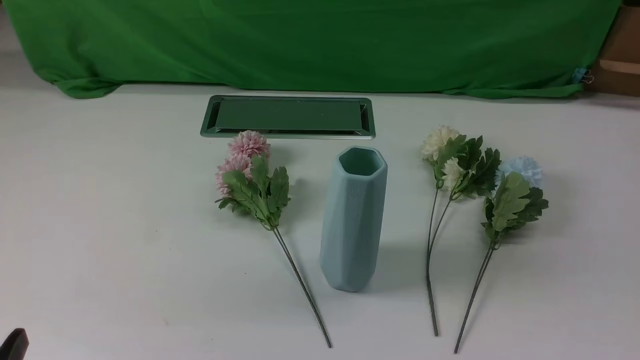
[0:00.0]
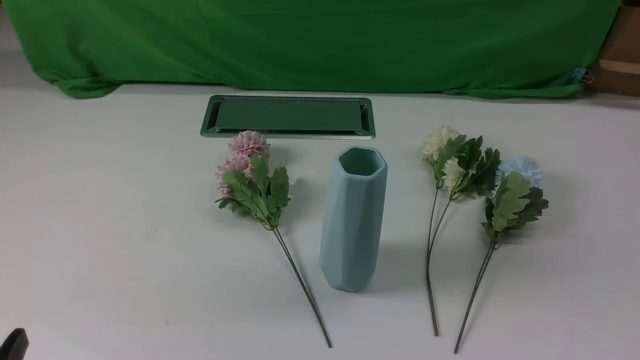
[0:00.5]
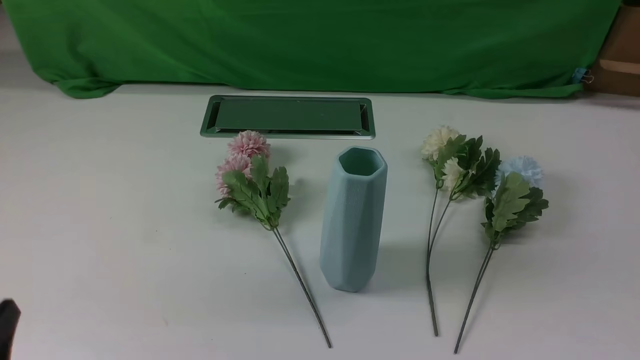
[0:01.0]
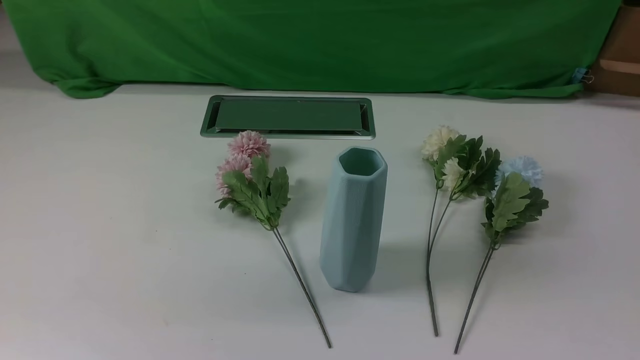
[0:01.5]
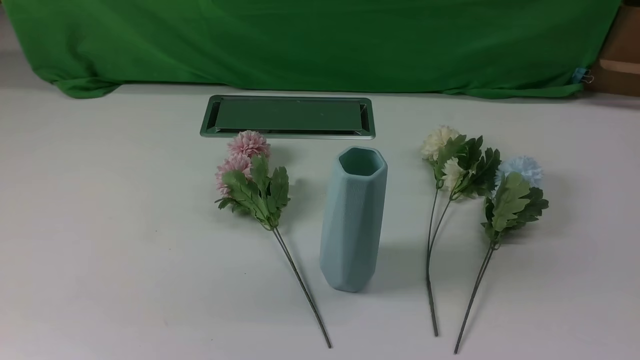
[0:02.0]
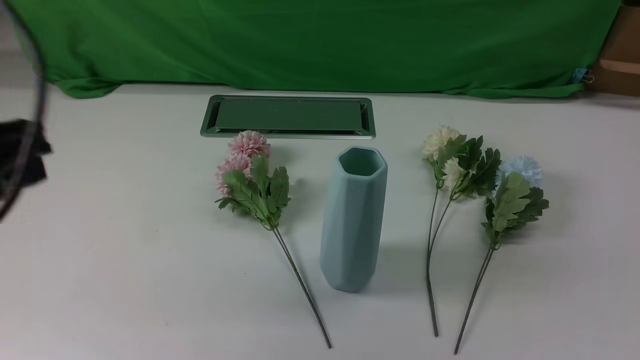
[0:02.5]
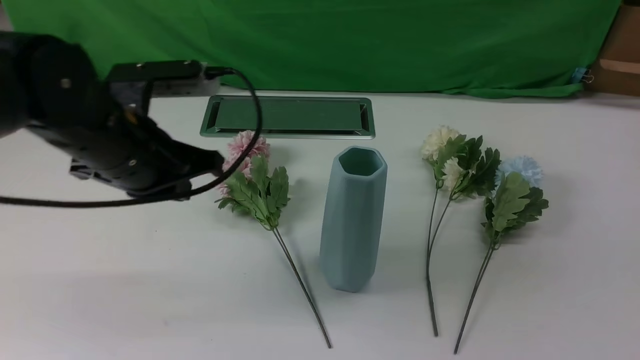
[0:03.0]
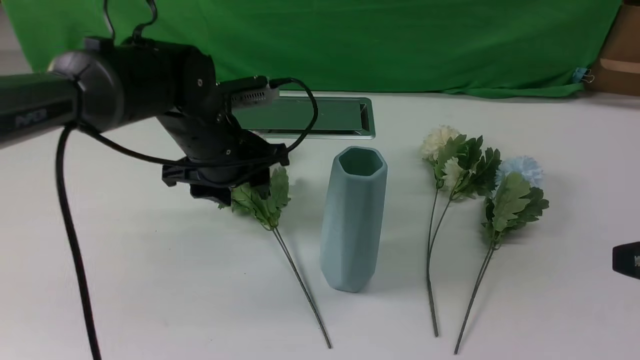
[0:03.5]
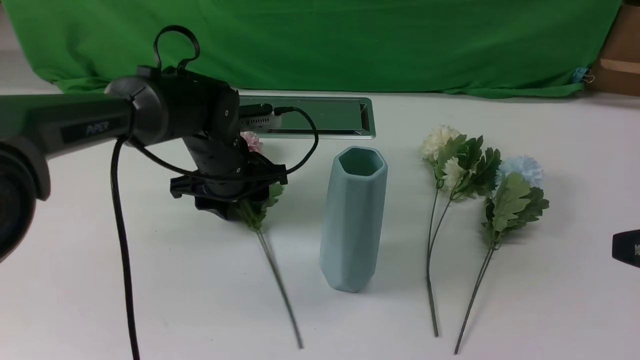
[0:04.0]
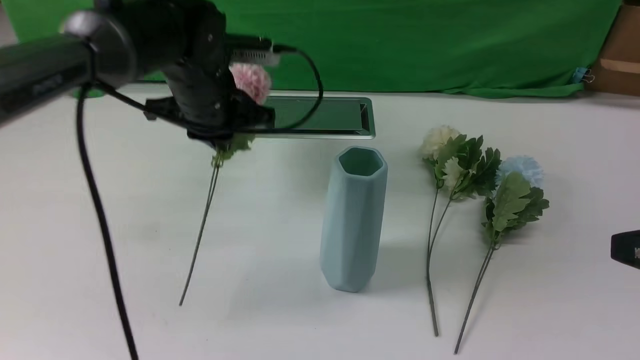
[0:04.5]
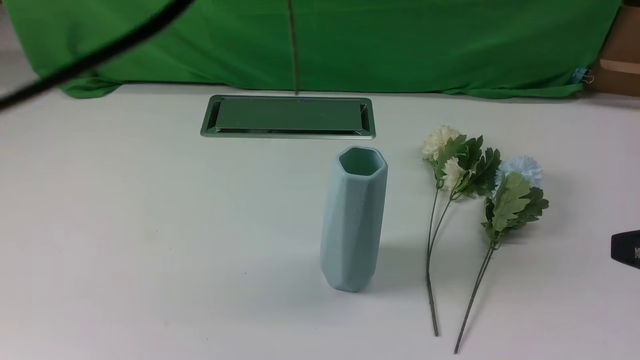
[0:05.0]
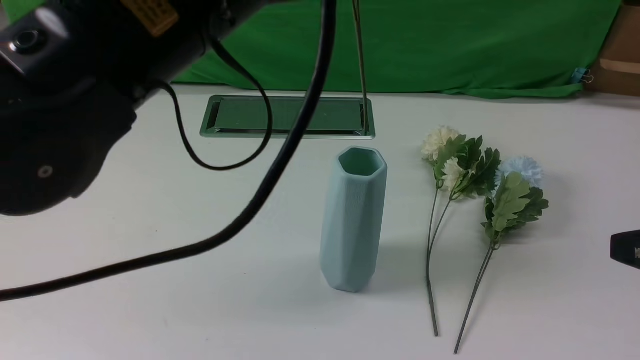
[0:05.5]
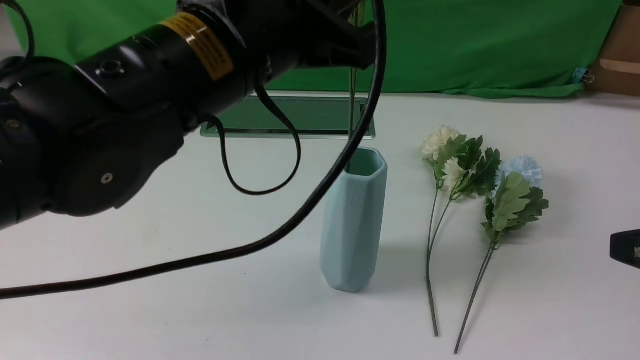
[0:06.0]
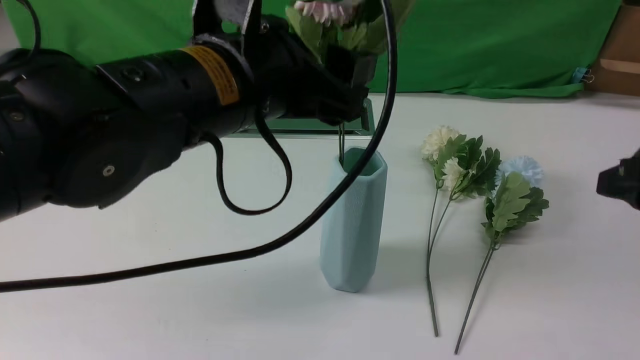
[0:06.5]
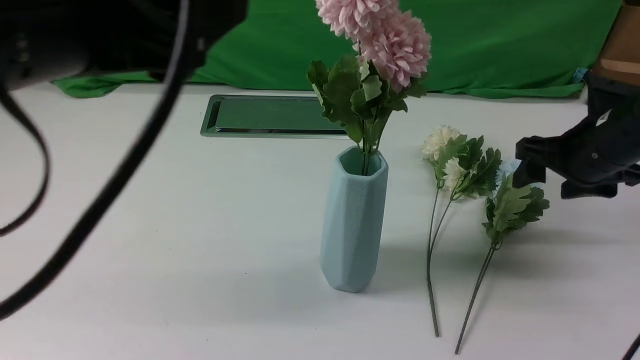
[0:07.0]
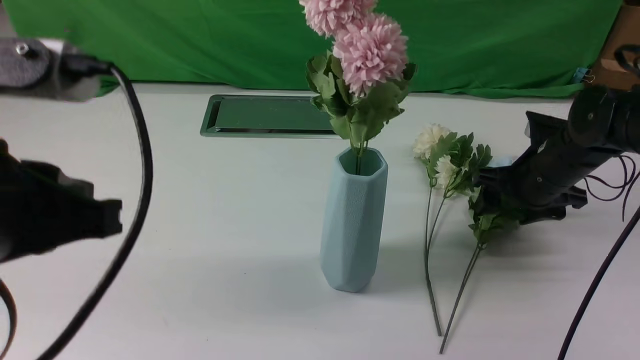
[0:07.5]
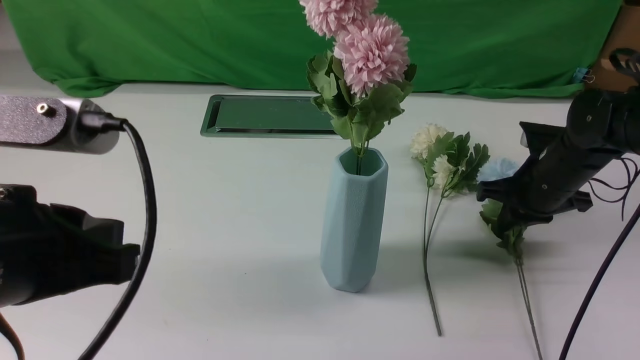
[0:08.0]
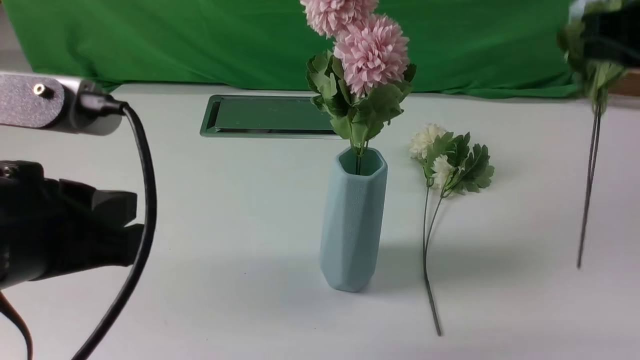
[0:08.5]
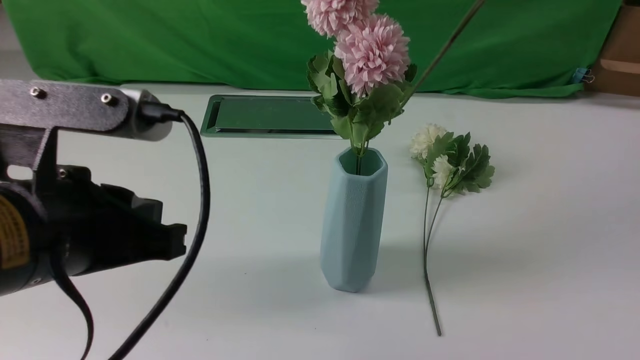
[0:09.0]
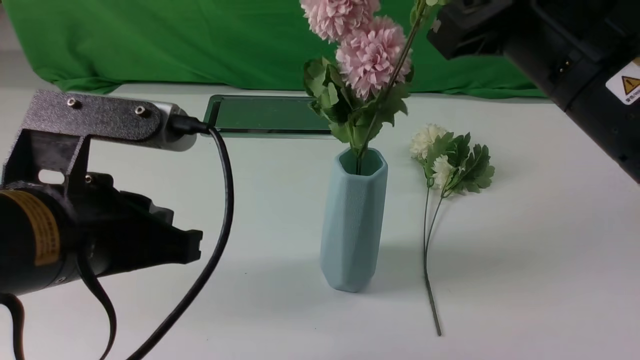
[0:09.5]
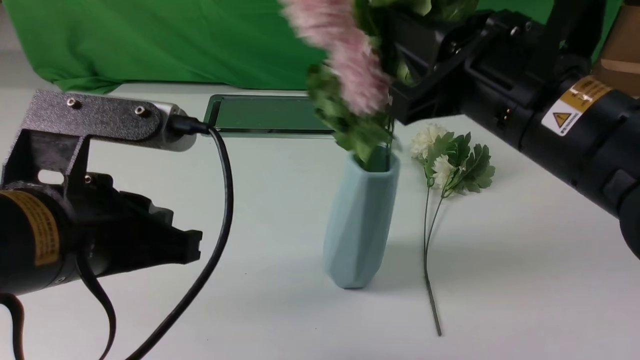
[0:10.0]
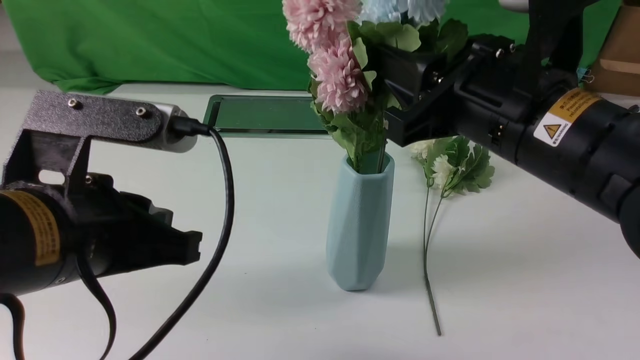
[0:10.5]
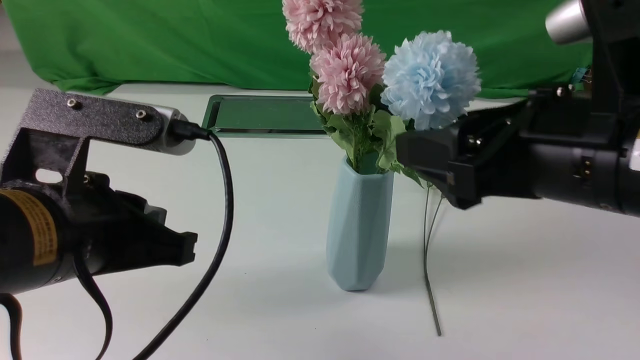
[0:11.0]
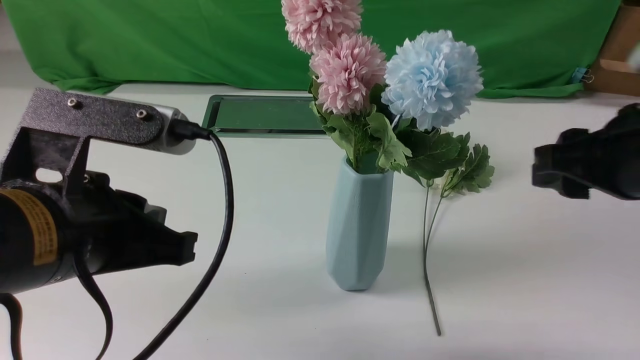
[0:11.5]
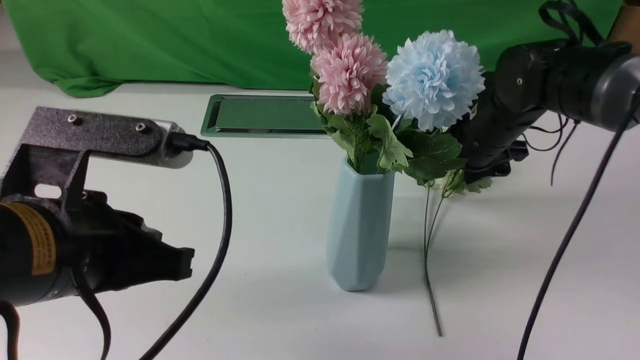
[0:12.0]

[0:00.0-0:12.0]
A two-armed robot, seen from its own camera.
Task of the whole recording: insert the flowers into the vase on the white table.
Step, 0:00.0 to 0:04.0: use the left arm to grab a bunch of fresh flowers.
Step, 0:04.5 to 0:06.5: use the left arm to insert the flowers into the vase.
Step, 0:07.0 to 0:07.5: use the right arm to grab a bunch of fresh flowers.
Step, 0:08.0 to 0:10.5: use the right arm to insert the flowers into the vase.
0:02.0 to 0:04.0: The left gripper travels forward and to the right by some 40 cm, and opens its fingers; the right gripper is displaced forward and upward by approximately 15 cm.
0:04.0 to 0:06.0: The left gripper is displaced upward and backward by about 25 cm, and closes.
0:06.0 to 0:08.0: The right gripper moves forward and downward, approximately 25 cm, and opens and closes again. Meanwhile the left gripper shifts approximately 15 cm backward and to the left, and opens, then closes again.
0:08.0 to 0:10.0: The right gripper heads upward, backward and to the left, covering roughly 25 cm.
0:10.0 to 0:12.0: The right gripper goes roughly 25 cm forward and downward, and opens.

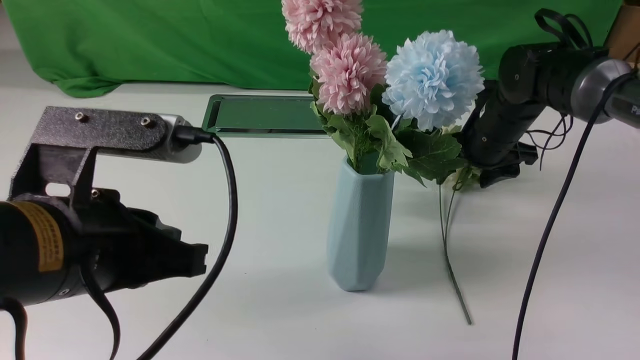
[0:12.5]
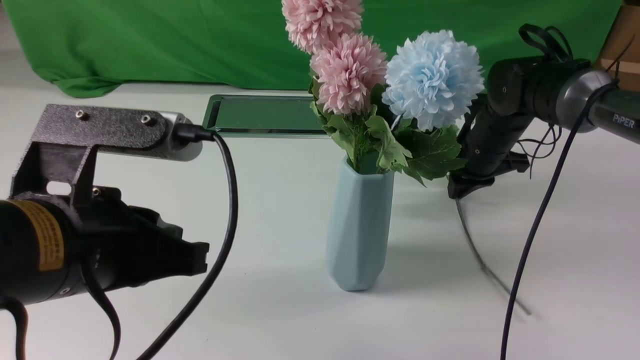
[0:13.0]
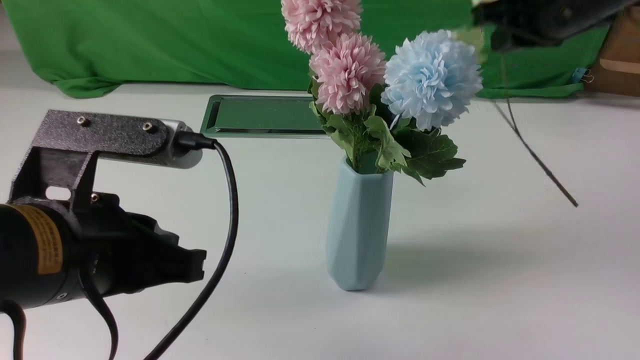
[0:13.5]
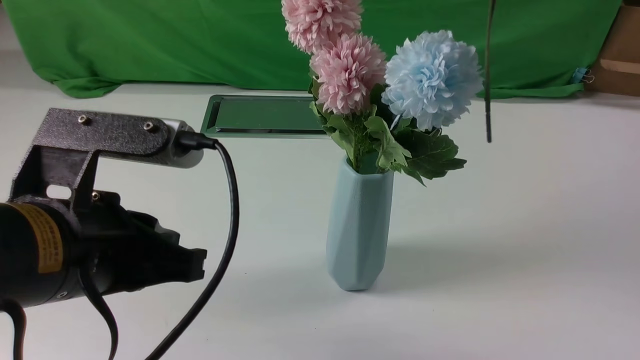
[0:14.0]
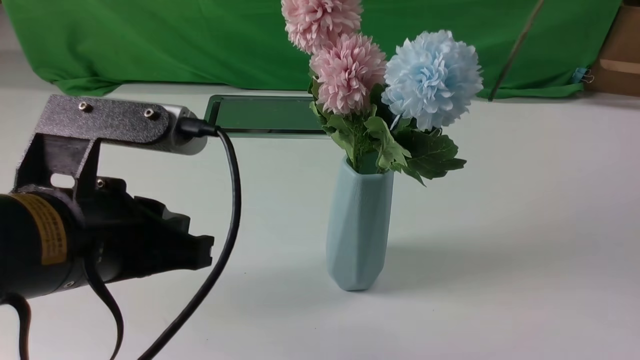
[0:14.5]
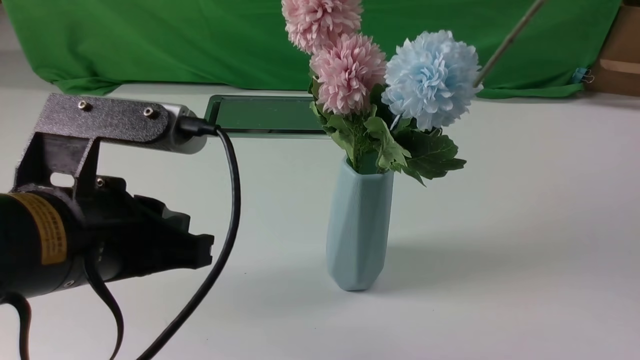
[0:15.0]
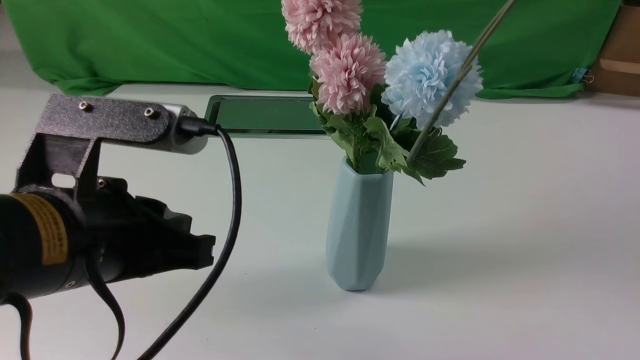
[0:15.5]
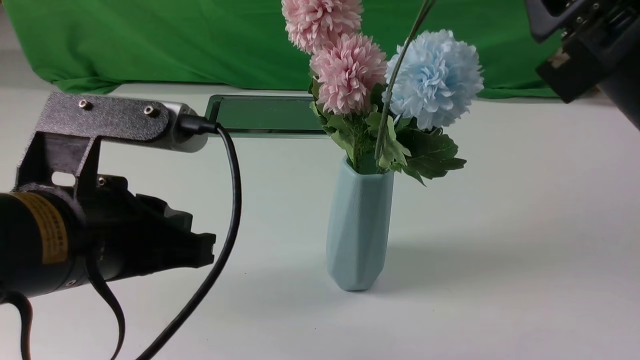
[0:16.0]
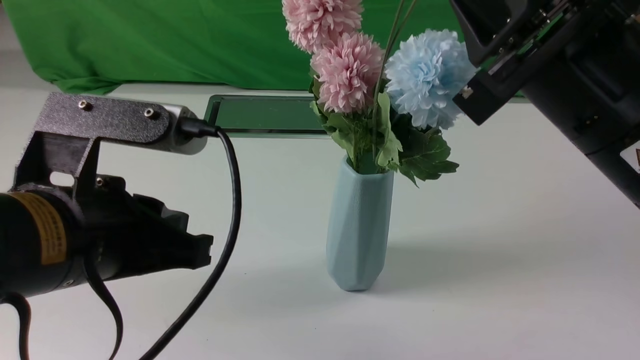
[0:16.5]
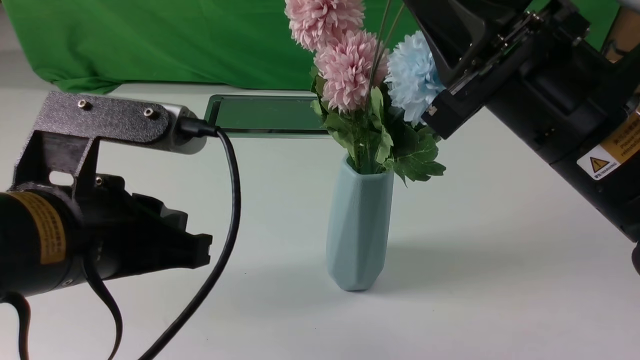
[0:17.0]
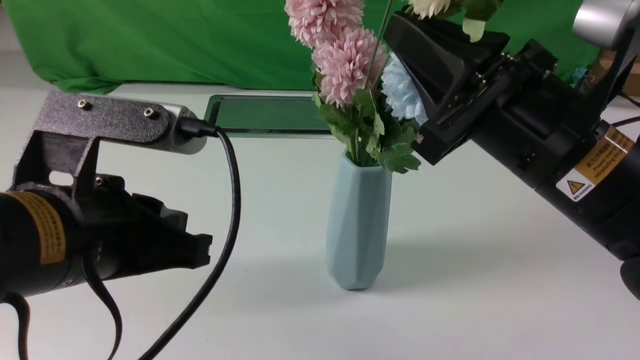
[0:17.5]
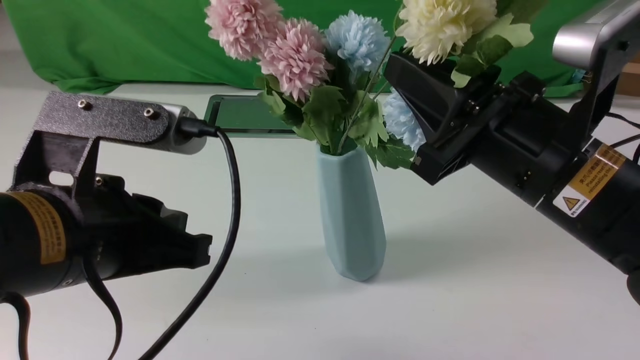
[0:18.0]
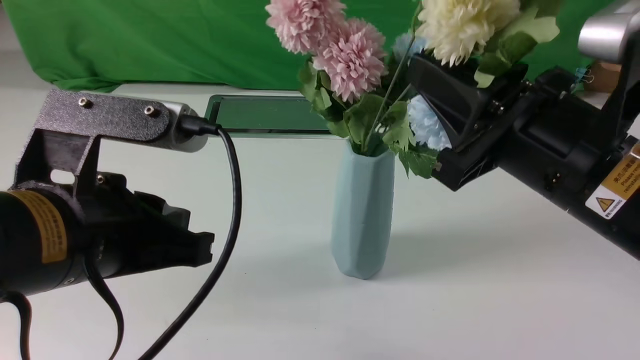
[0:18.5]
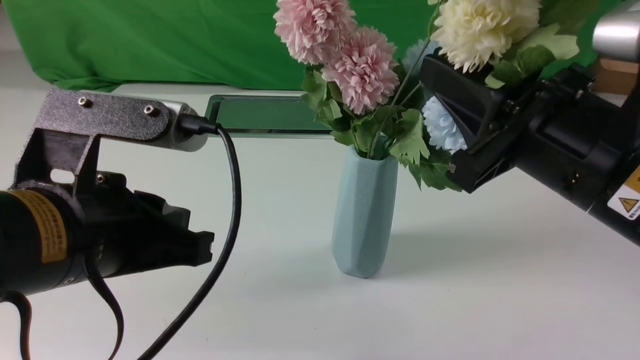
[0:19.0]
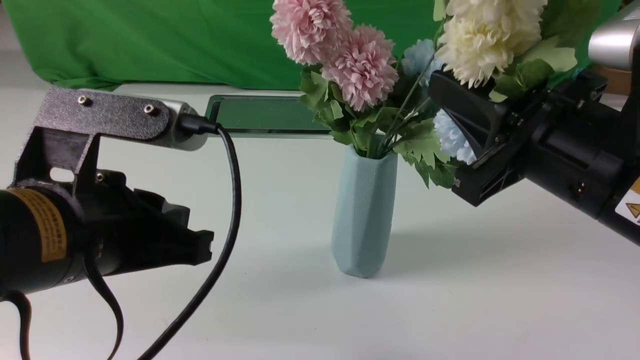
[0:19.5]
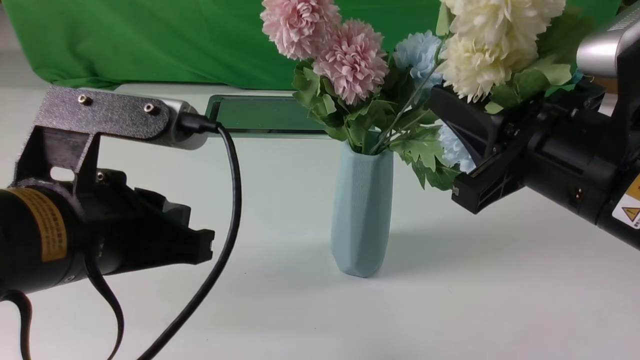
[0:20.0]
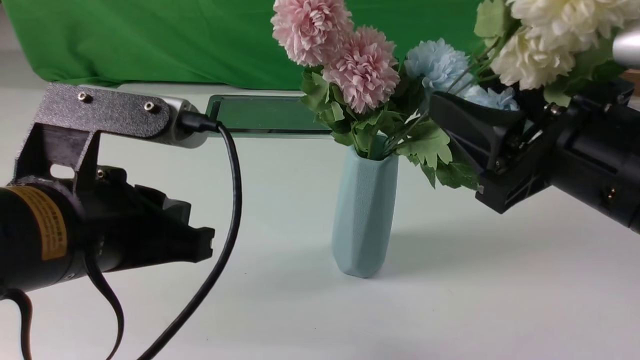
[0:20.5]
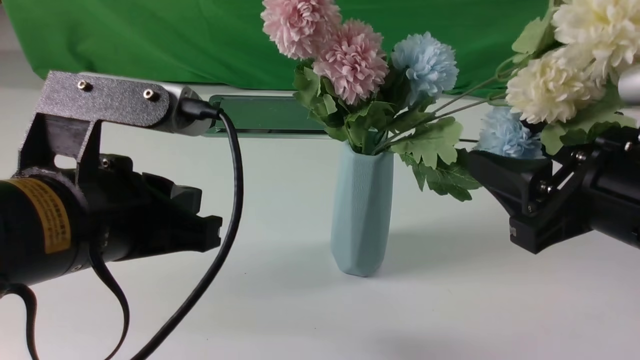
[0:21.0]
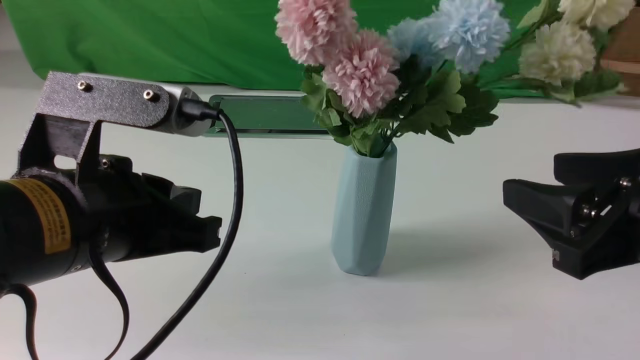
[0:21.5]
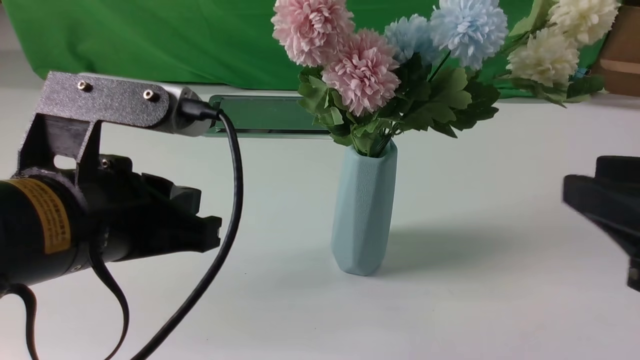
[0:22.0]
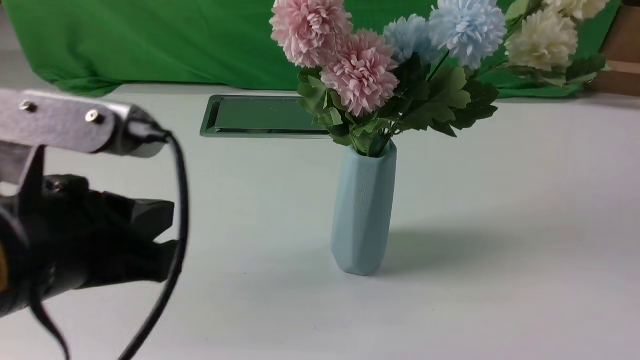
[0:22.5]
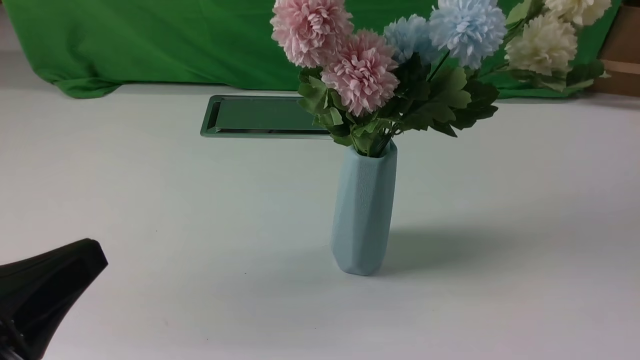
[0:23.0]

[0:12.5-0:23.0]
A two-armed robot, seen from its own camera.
Task of the whole recording: insert the flowers into the vase on the white table.
Step, 0:13.5 to 0:20.5: use the right arm to insert the flowers into the vase.
0:12.5 to 0:14.5: The right gripper shifts roughly 40 cm backward and upward, and closes up.
0:14.5 to 0:16.5: The right gripper shifts roughly 10 cm to the left, downward and forward.
0:19.0 to 0:21.0: The right gripper opens its fingers.
0:21.0 to 0:23.0: The left gripper moves backward and to the left, approximately 10 cm; the right gripper travels backward and to the right by about 20 cm, and closes its fingers.
